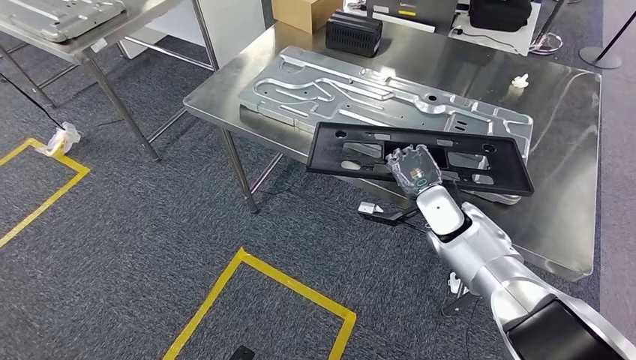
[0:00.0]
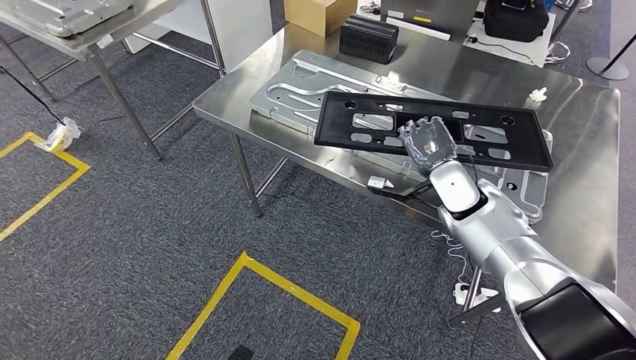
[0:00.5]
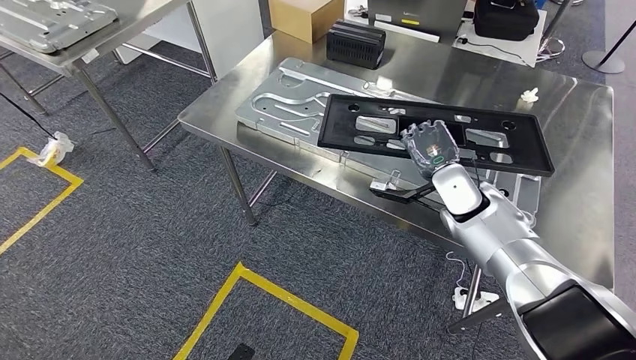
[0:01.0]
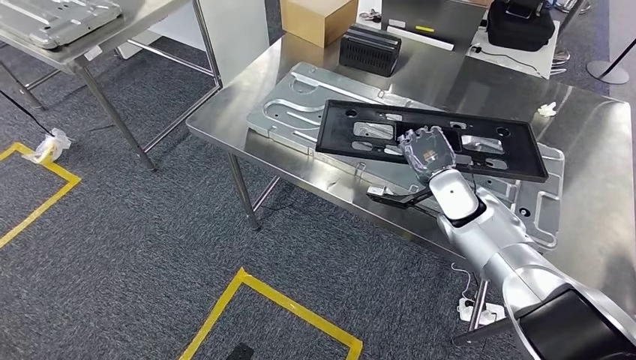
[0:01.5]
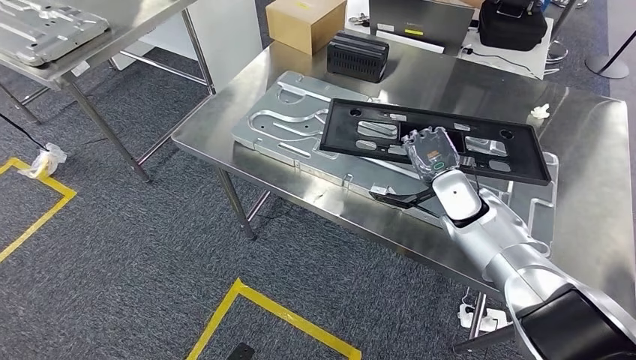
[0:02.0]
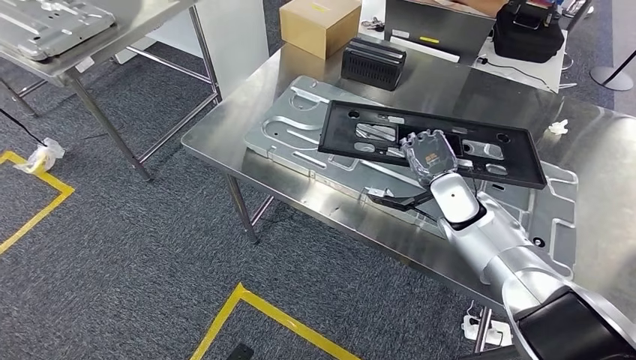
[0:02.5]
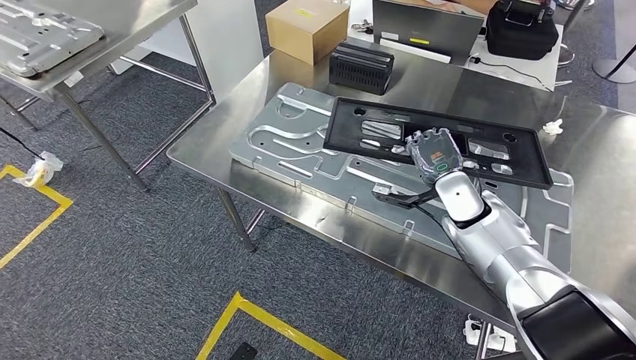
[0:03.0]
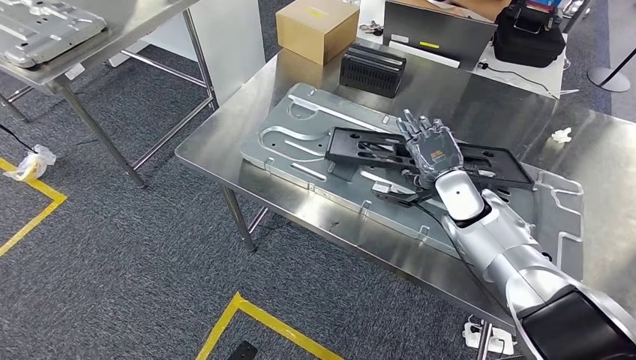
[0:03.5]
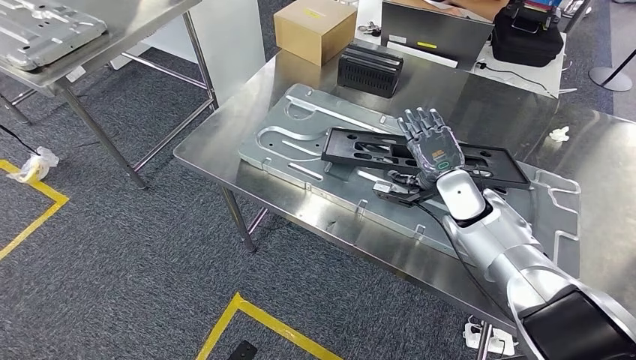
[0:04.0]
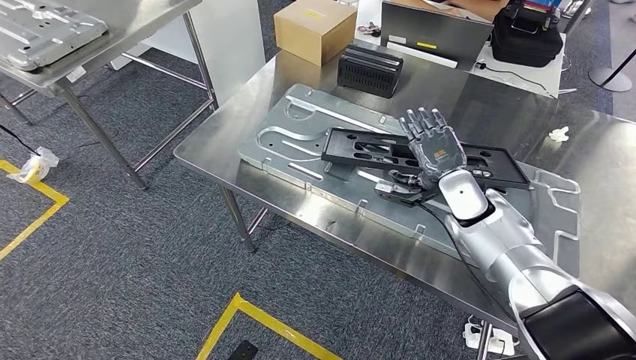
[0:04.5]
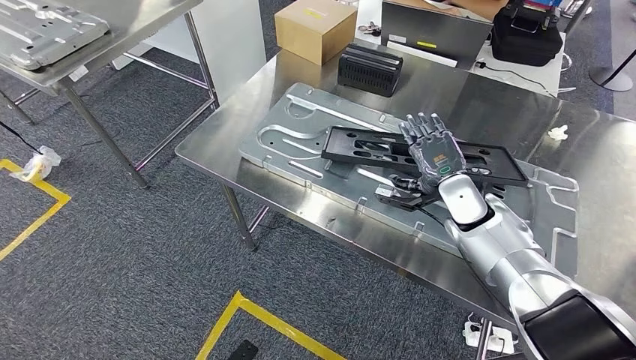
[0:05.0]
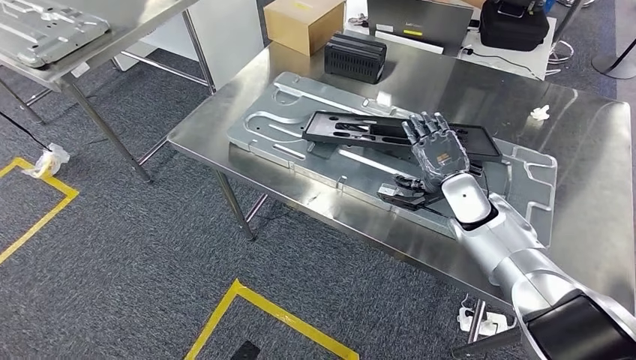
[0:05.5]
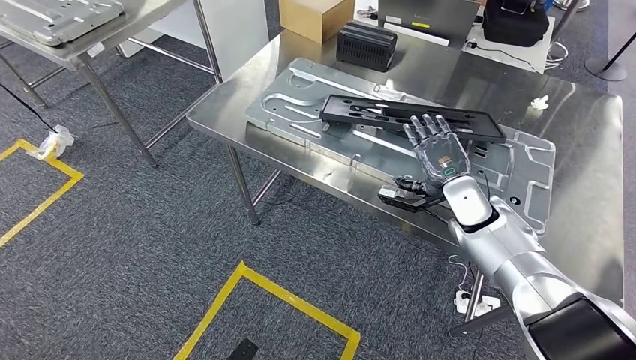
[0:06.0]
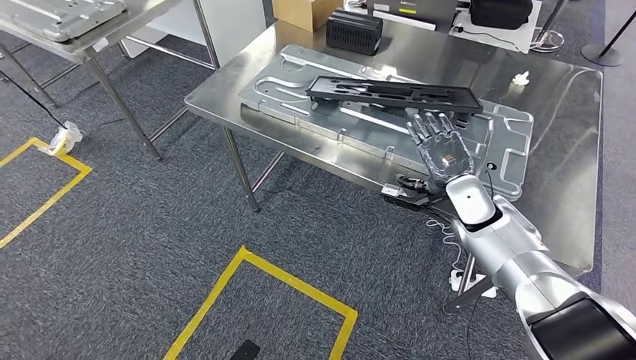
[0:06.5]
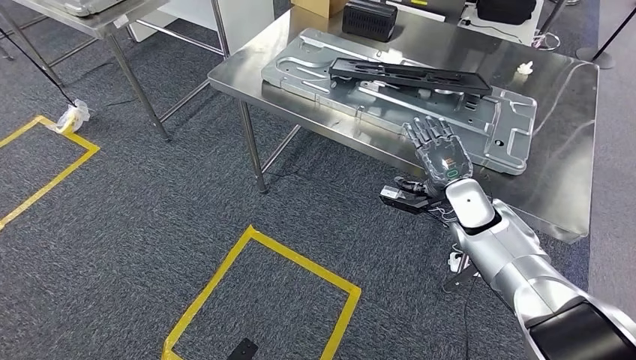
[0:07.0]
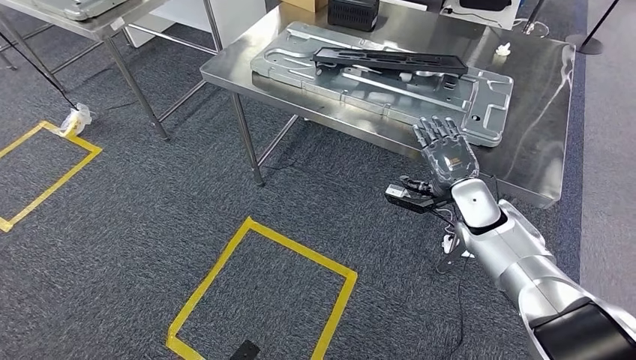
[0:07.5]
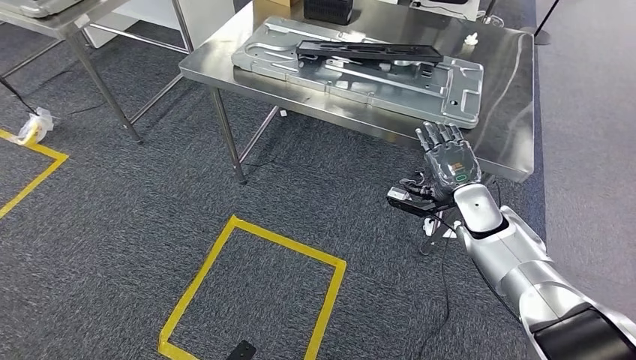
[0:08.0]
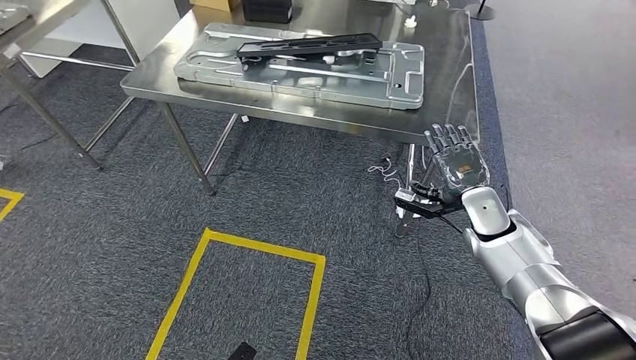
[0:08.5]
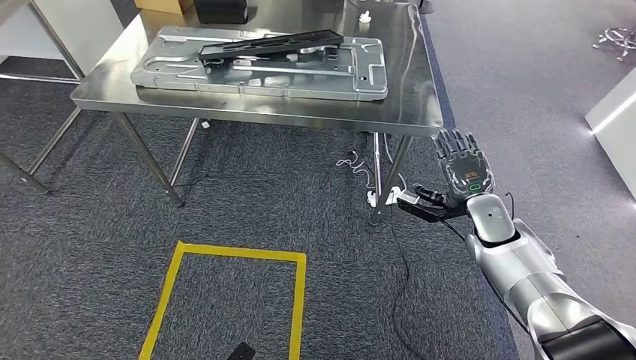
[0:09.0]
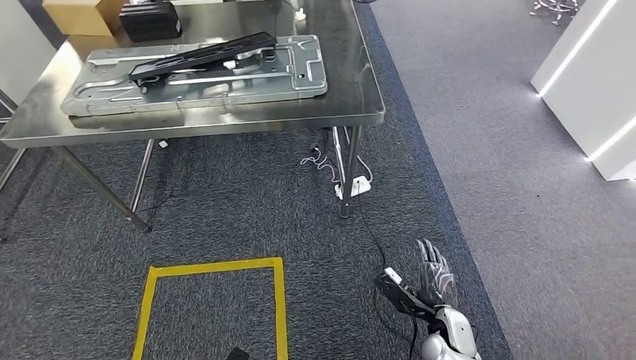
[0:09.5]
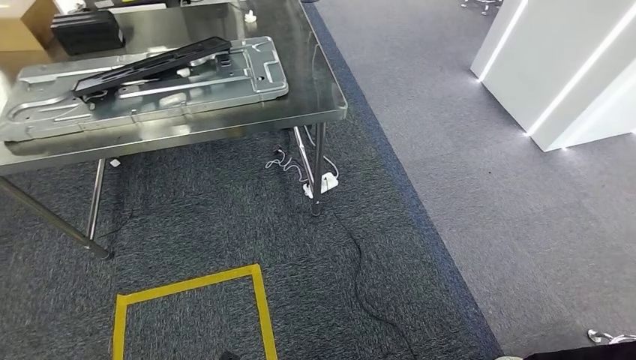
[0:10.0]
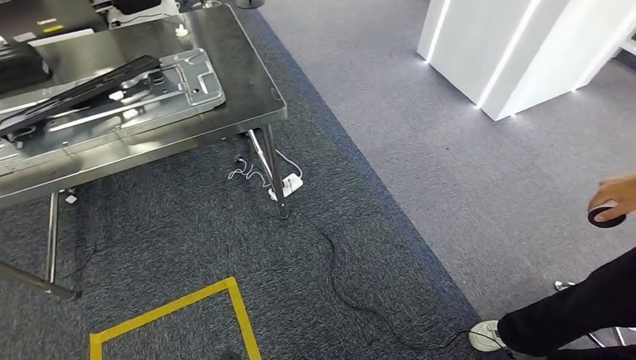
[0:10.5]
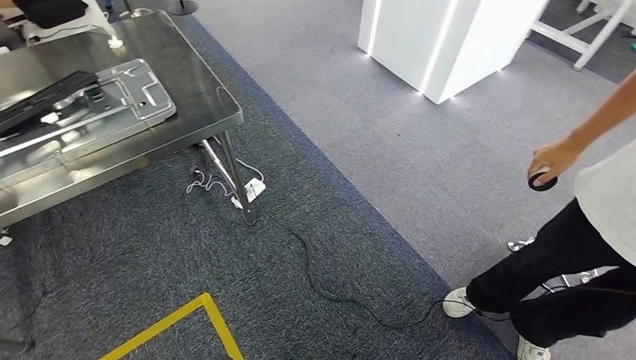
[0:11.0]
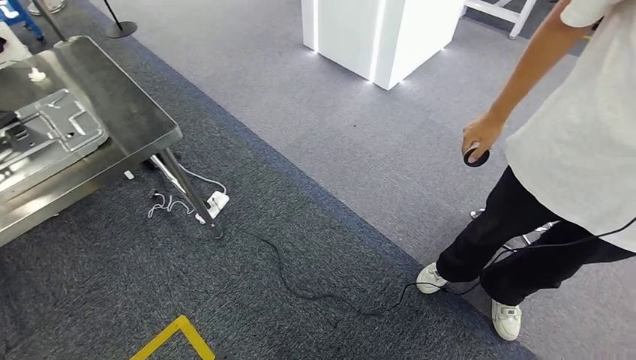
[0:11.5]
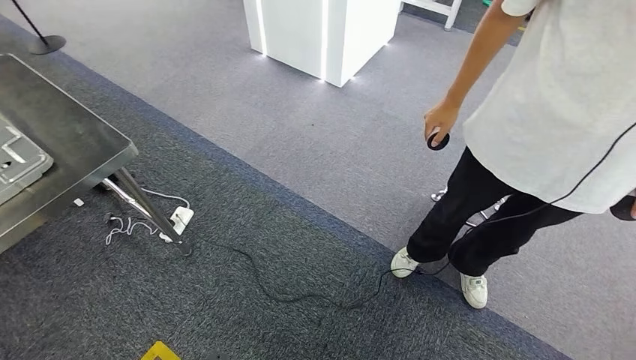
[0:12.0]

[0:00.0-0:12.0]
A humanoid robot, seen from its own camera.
Step, 0:02.0 to 0:06.0: Insert the large material into the corresponding slot on the workbench.

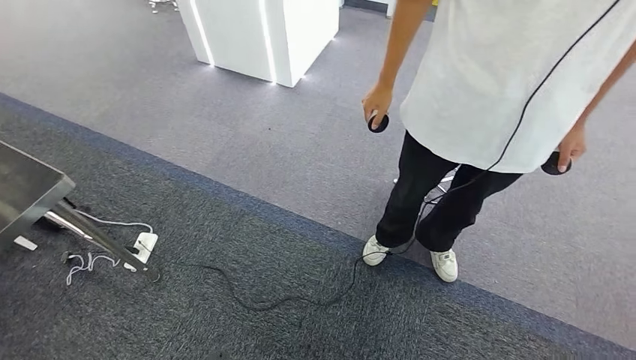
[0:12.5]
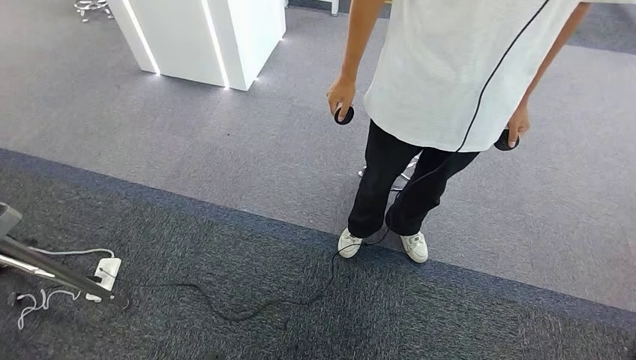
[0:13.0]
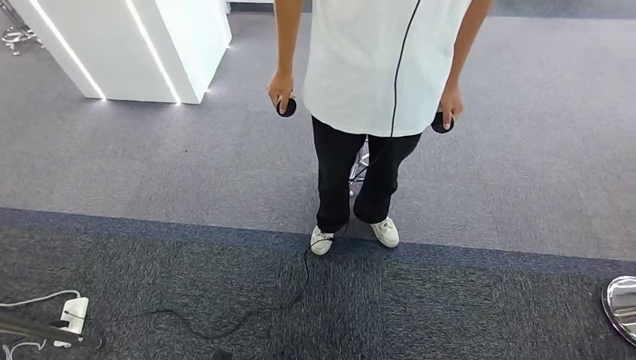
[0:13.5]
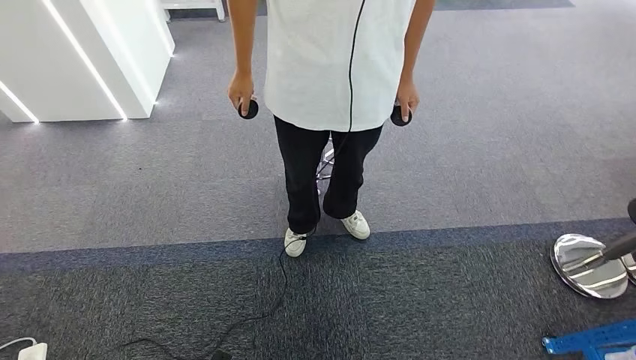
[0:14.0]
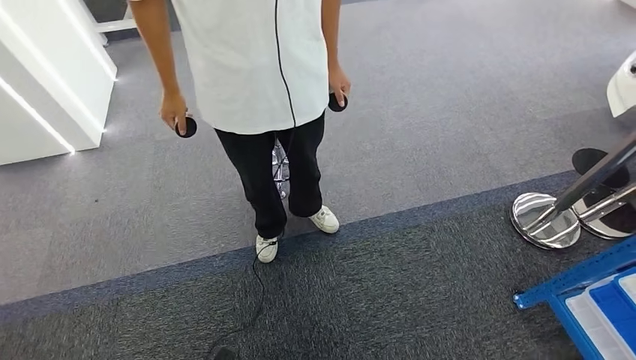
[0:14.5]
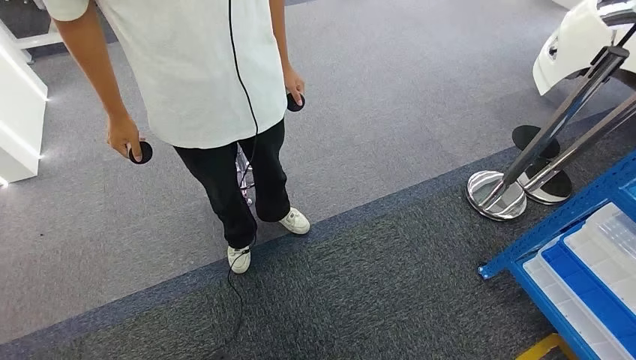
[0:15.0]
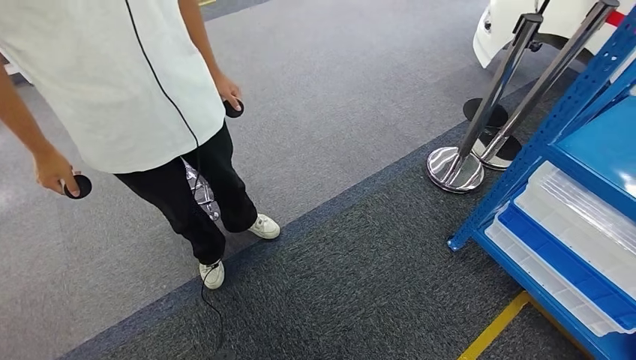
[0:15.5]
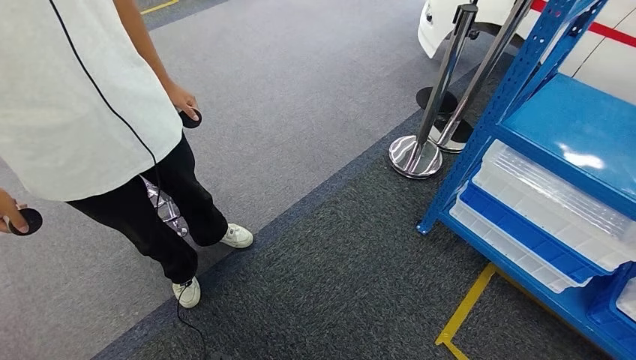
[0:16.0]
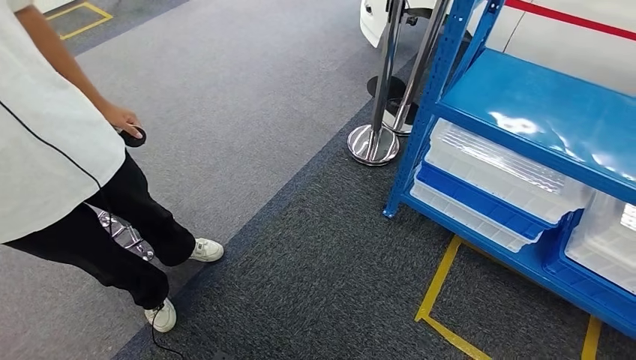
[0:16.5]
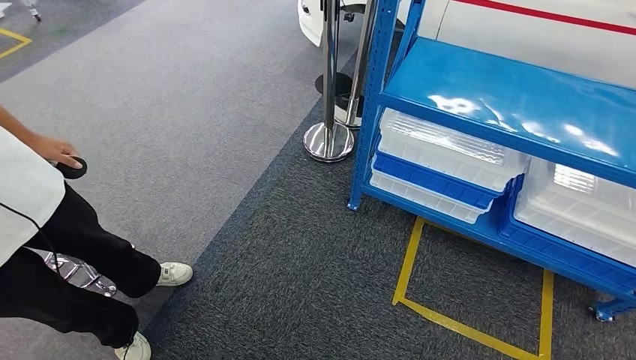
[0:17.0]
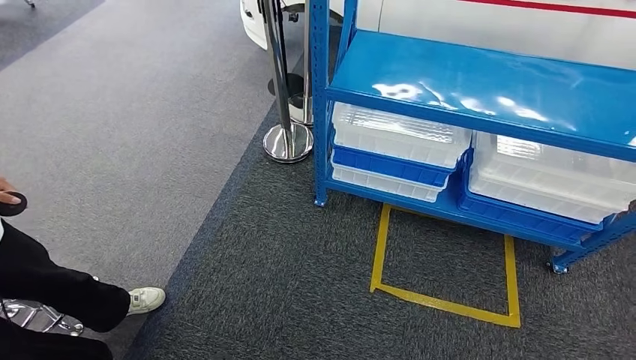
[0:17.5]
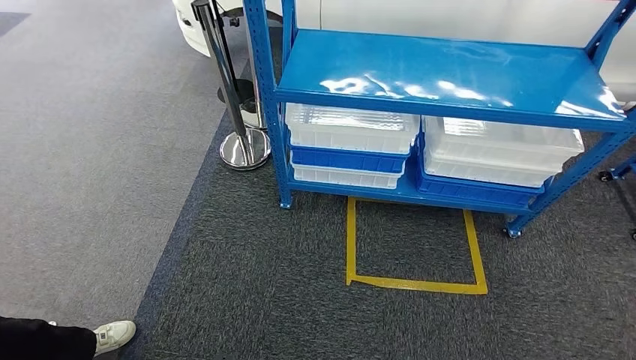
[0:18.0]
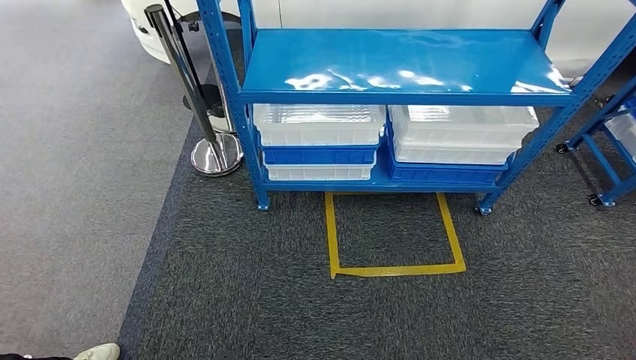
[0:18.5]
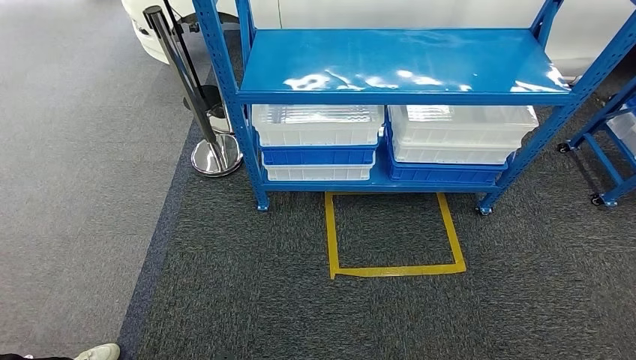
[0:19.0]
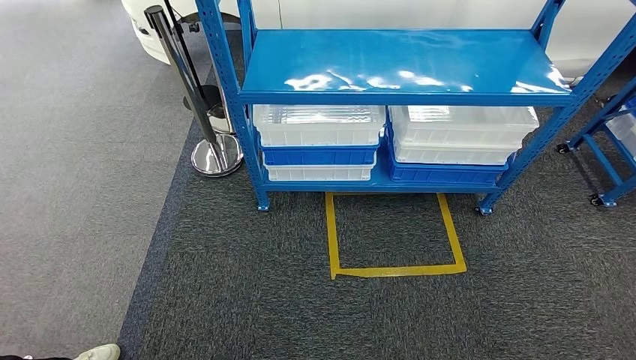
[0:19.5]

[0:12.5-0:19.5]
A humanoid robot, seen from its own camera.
Step, 0:12.5 to 0:19.5: Return to the initial position at the shelf.
